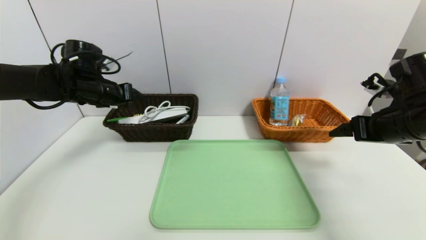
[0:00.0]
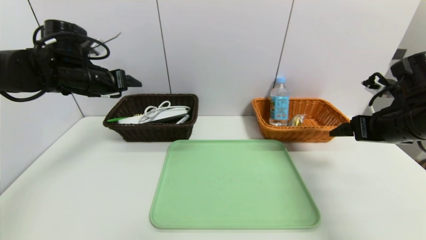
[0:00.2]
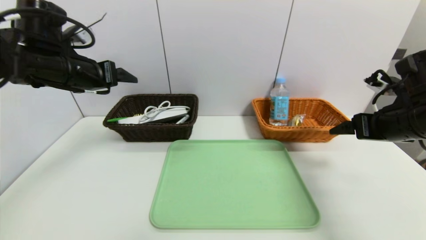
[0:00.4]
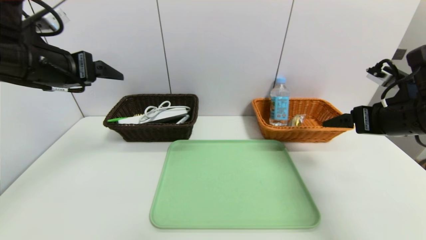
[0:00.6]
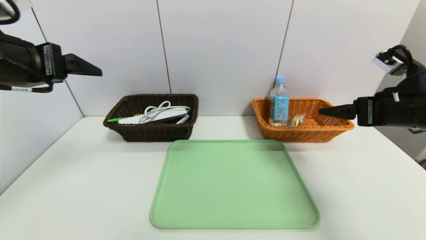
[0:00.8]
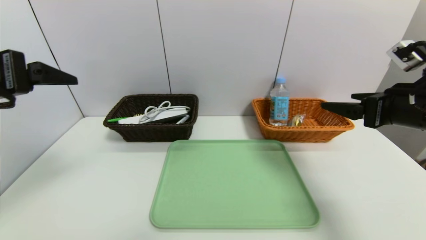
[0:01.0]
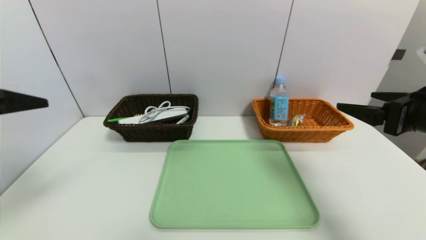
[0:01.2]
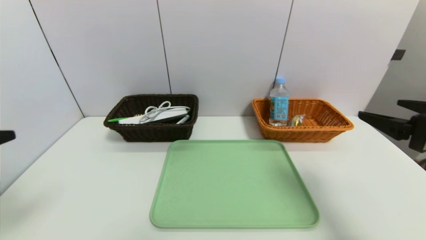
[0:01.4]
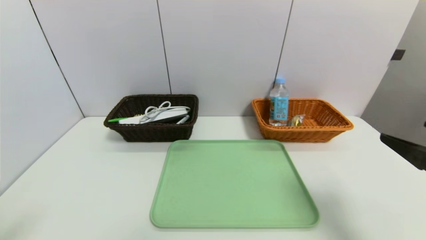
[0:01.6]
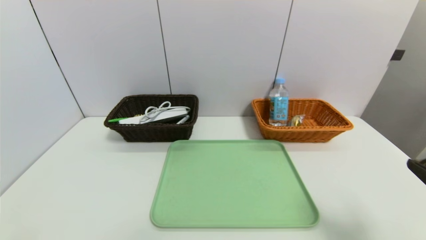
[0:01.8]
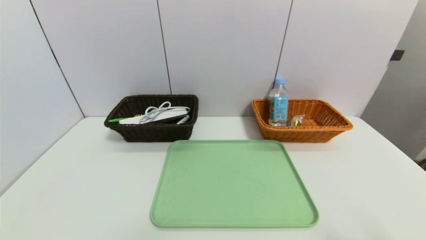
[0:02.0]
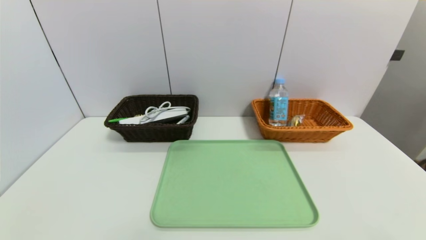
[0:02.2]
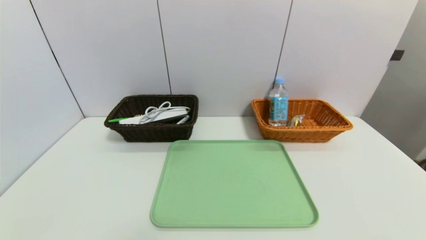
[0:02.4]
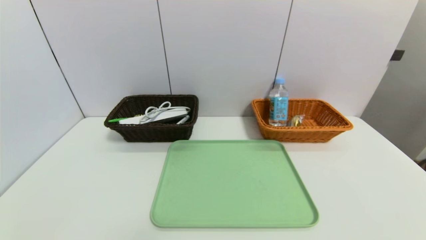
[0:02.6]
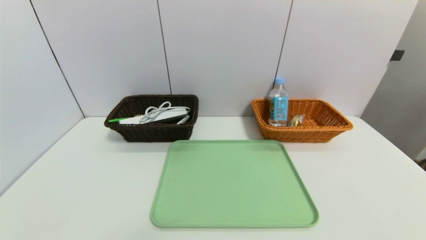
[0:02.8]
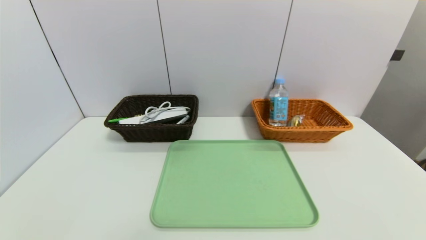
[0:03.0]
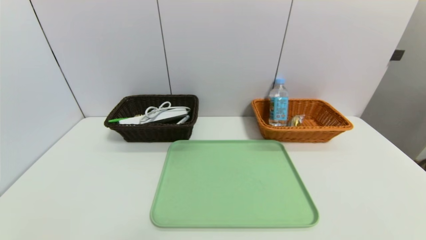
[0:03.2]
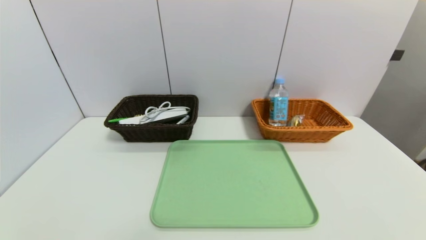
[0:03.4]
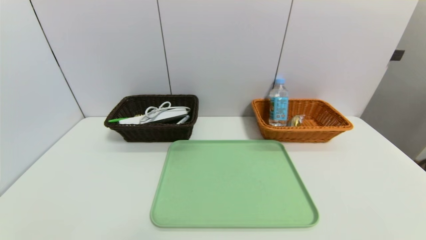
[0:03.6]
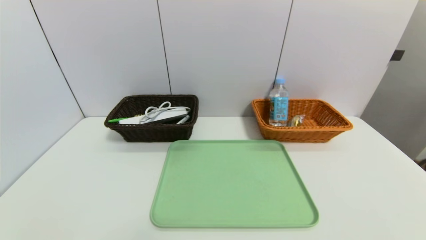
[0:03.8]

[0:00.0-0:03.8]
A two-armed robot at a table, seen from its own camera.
Task of the whole recording: place the food in the right basket with the right gripper, and place the non food items in the left basket with the left gripper.
0:00.0 to 0:01.2: The left gripper moves backward, some 25 cm. Meanwhile the right gripper travels backward by about 5 cm.
0:01.2 to 0:02.6: The right gripper is displaced backward and downward by some 25 cm, while the left gripper travels downward and backward by roughly 25 cm.
